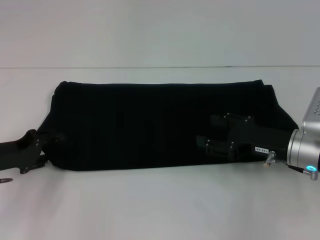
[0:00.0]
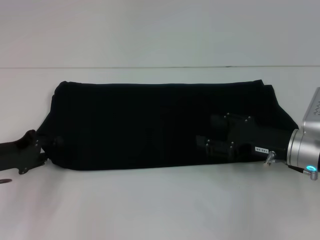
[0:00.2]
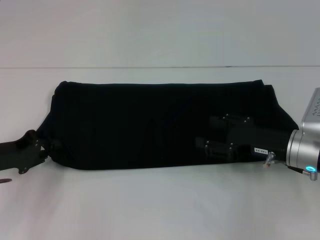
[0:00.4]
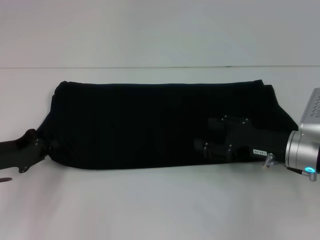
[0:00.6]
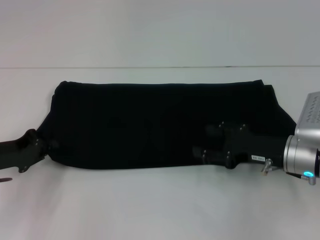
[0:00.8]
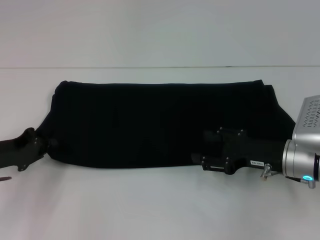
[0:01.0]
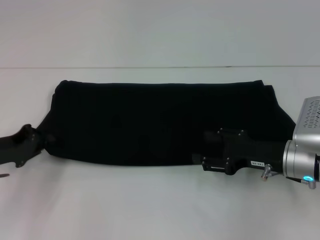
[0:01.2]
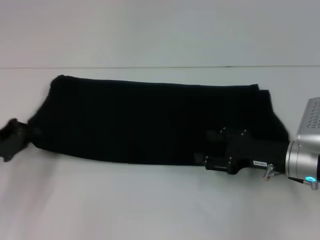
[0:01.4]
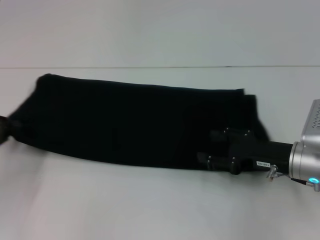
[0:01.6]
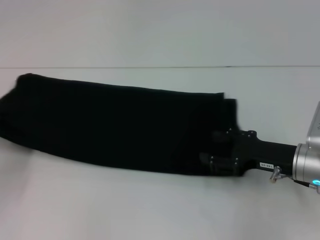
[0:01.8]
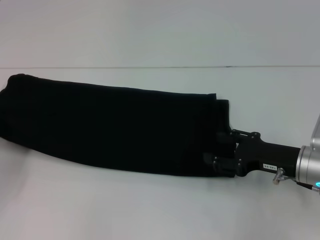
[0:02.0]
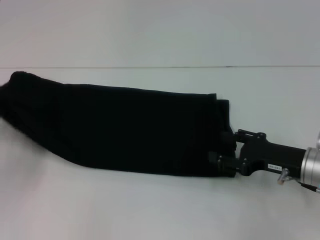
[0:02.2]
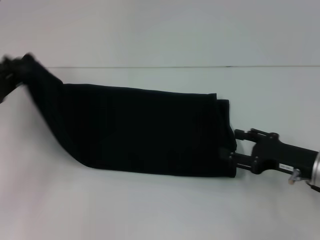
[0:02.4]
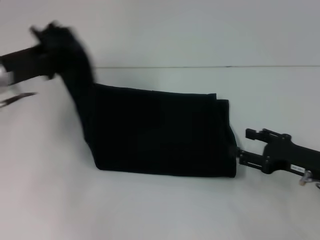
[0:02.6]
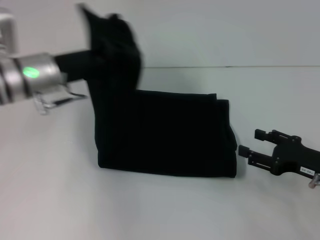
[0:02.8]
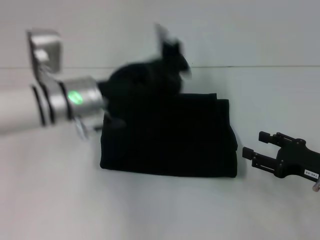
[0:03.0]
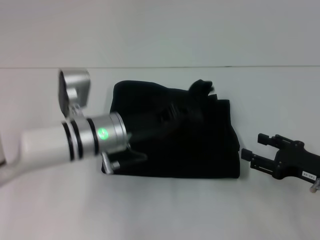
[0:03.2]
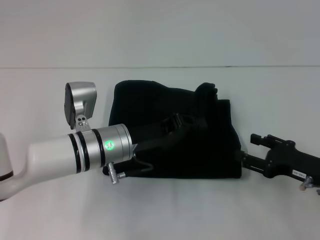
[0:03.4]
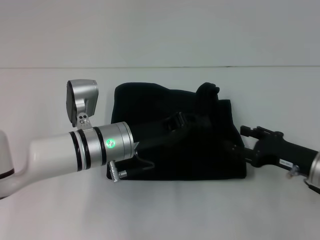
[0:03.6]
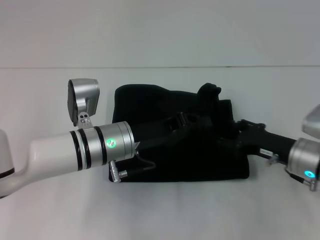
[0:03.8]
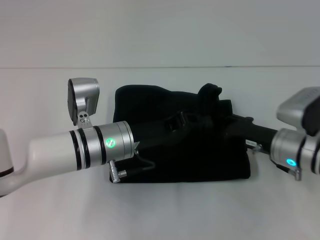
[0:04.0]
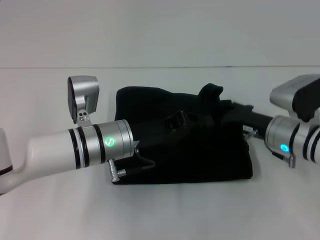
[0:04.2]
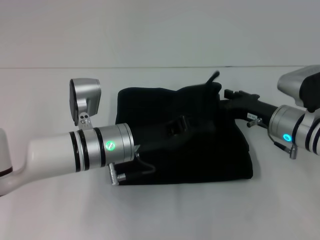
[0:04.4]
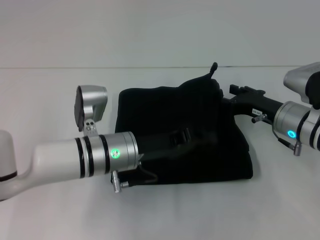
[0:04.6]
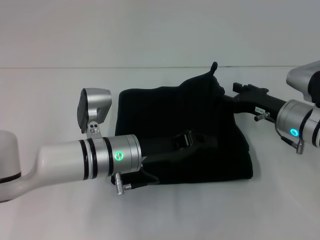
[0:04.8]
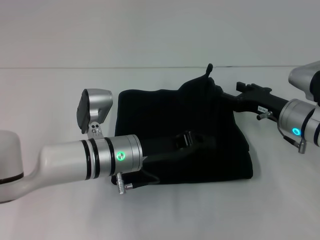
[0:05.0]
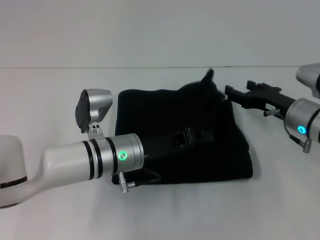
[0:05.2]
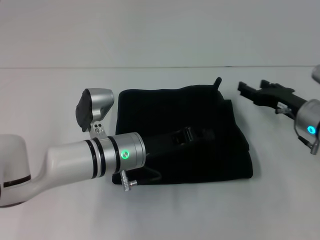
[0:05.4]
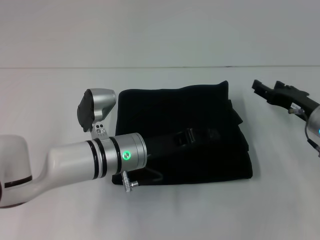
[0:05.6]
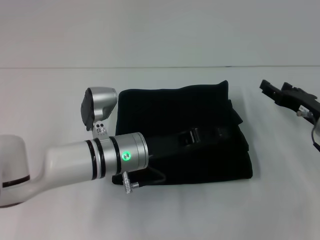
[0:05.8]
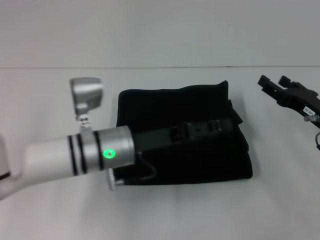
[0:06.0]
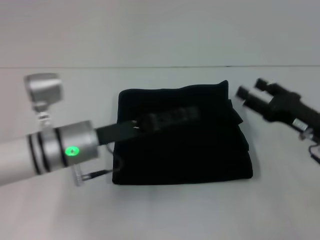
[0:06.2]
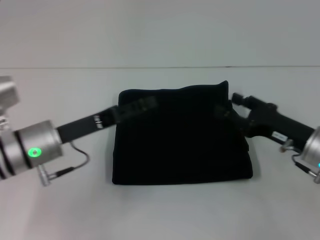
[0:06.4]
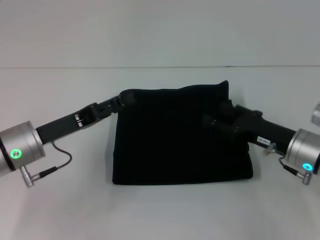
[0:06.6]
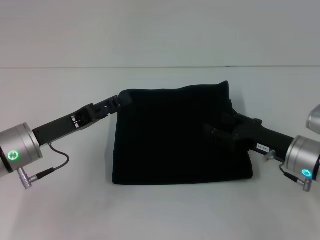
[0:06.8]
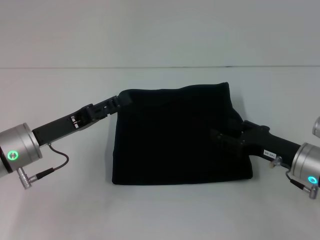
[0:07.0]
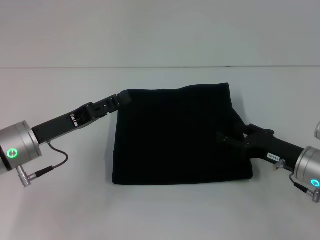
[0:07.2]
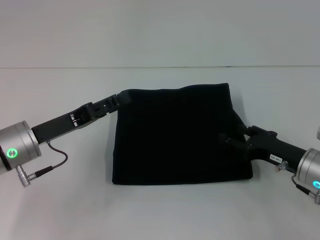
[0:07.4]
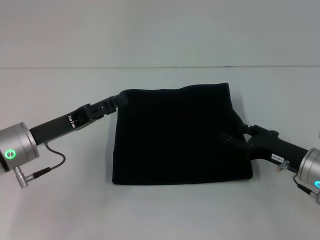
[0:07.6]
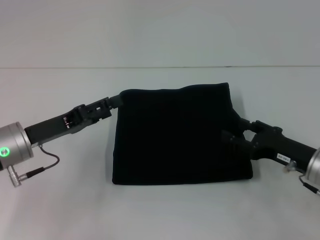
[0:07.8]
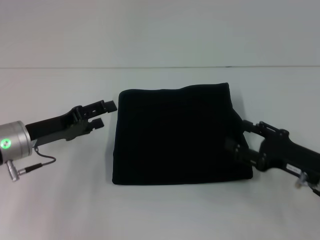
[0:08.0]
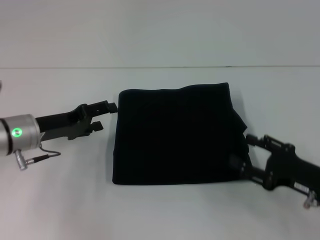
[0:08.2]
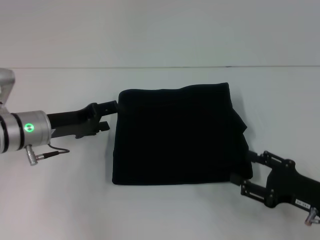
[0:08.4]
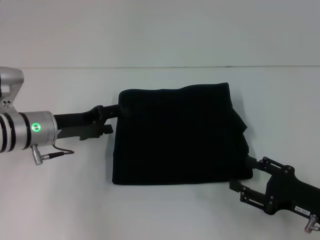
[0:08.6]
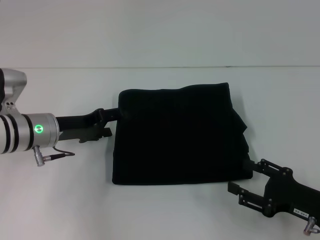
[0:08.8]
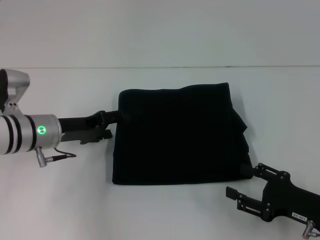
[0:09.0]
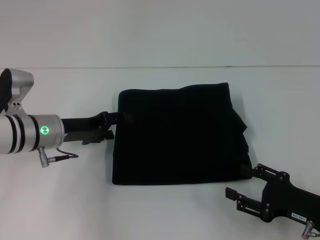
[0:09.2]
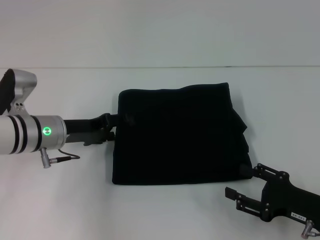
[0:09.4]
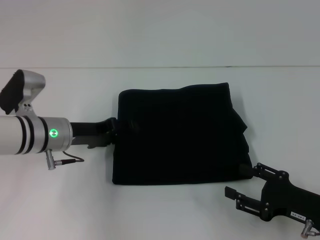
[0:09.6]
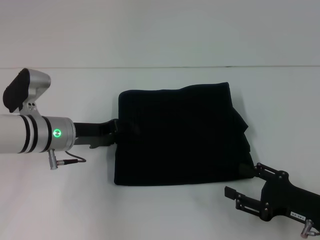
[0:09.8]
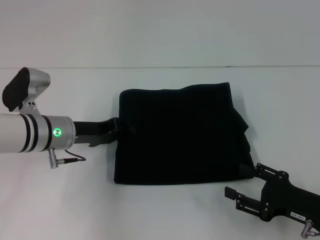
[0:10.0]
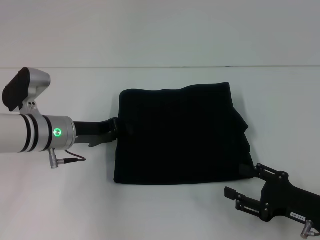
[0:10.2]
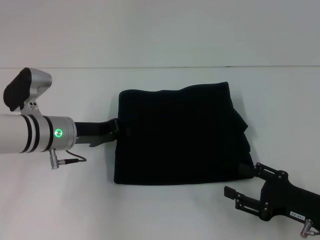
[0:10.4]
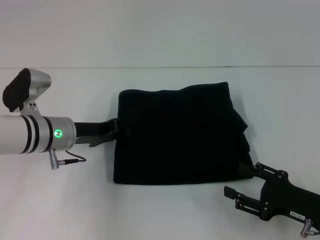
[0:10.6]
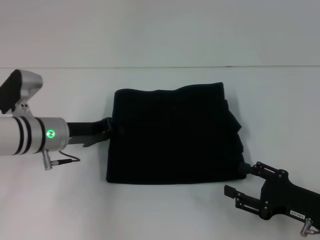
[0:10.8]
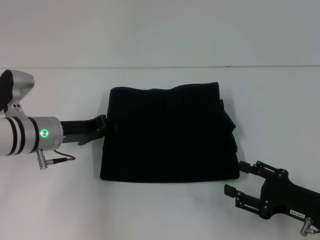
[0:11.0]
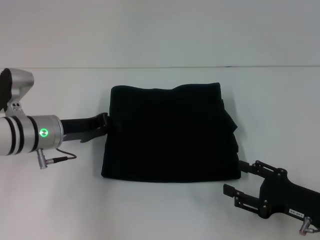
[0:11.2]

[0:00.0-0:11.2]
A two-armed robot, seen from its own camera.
Step, 0.0 to 6.0 s: Fold the clothes with your left hand.
0.0 to 1.6 s: The left gripper closes.
1.6 to 3.2 s: The right gripper goes approximately 5 cm to the right. Meanwhile the left gripper goes roughly 25 cm to the right.
3.2 to 4.8 s: The right gripper shifts roughly 10 cm forward and to the left.
4.8 to 6.4 s: The left gripper is displaced to the left by approximately 10 cm, and opens; the right gripper shifts some 5 cm backward.
6.4 to 8.0 s: The left gripper moves to the left, some 5 cm.
8.0 to 9.6 s: The left gripper heads to the right, covering roughly 5 cm. The right gripper ends up some 5 cm from where it was.
9.6 to 11.2 s: The left gripper closes.

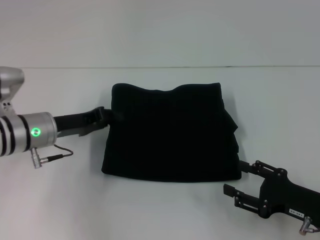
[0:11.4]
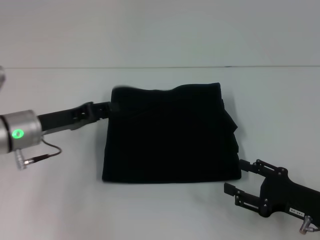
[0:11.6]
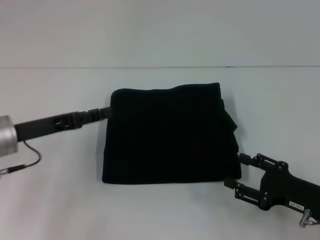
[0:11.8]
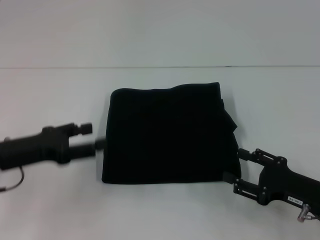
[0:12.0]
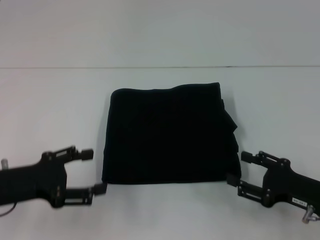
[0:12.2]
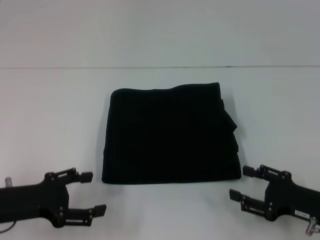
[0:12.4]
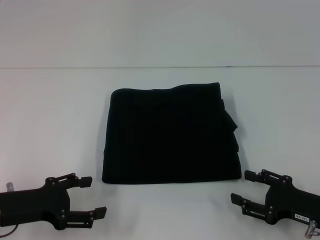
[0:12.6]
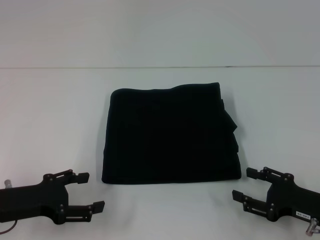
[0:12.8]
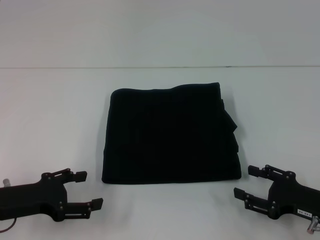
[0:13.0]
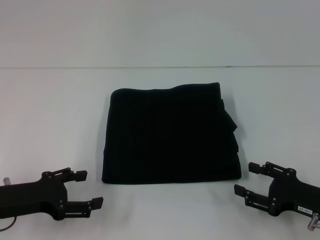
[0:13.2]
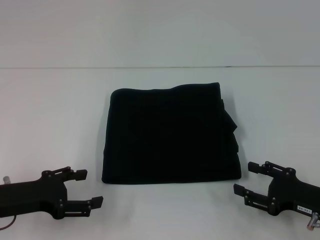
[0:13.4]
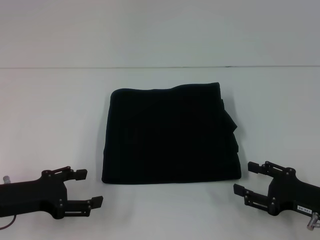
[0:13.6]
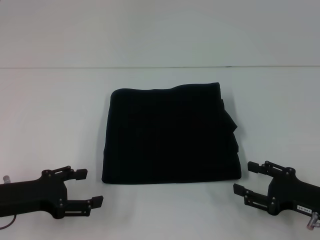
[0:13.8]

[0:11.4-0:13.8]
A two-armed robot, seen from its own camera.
11.4 to 12.6 s: The left gripper is displaced backward and to the left by some 15 cm, and opens its fingers.
12.6 to 13.8 s: The two grippers keep their place.

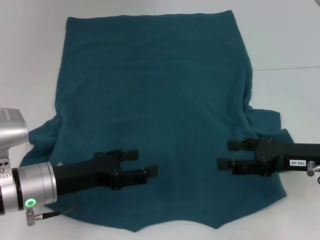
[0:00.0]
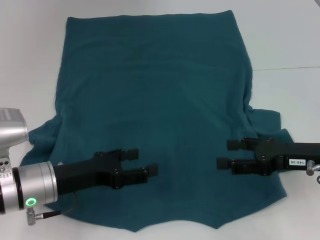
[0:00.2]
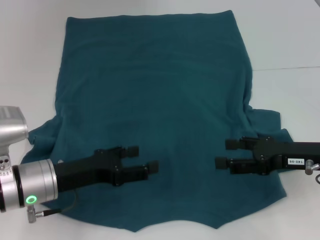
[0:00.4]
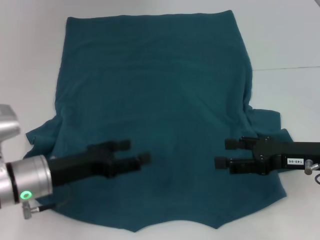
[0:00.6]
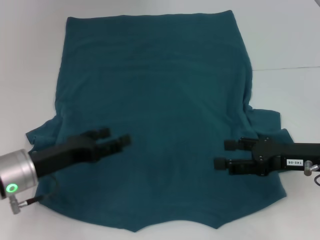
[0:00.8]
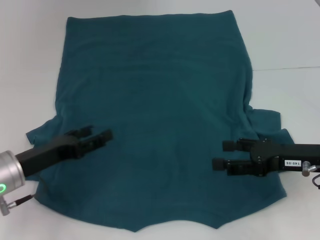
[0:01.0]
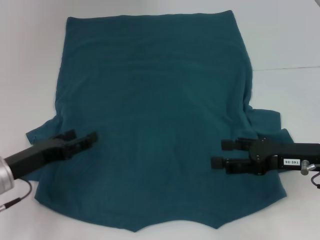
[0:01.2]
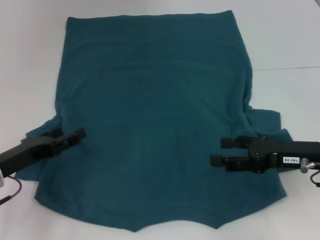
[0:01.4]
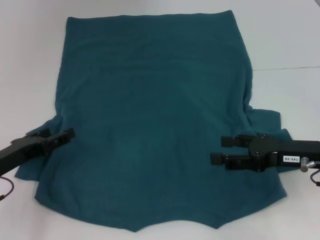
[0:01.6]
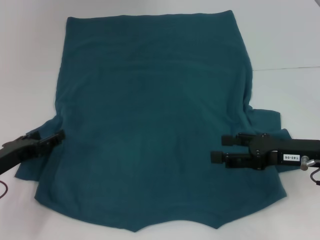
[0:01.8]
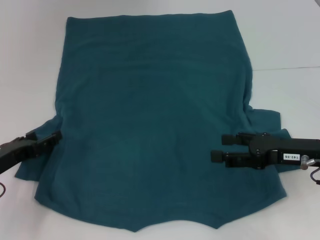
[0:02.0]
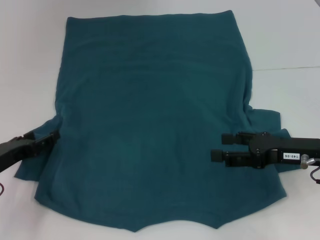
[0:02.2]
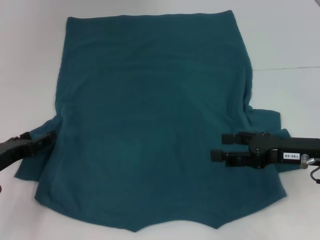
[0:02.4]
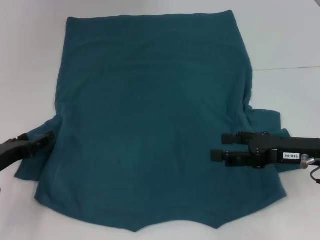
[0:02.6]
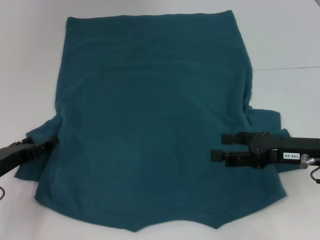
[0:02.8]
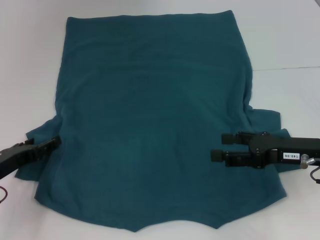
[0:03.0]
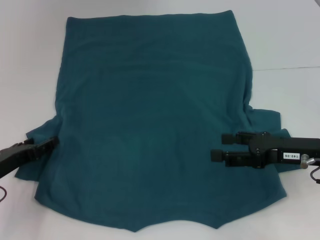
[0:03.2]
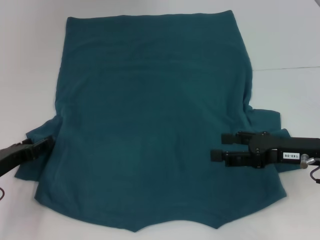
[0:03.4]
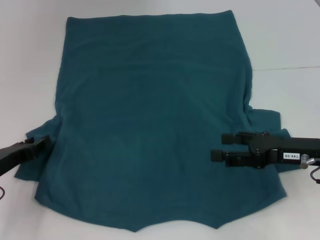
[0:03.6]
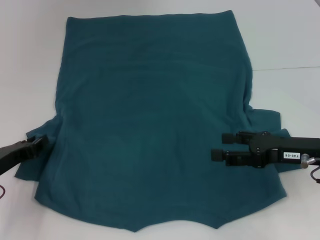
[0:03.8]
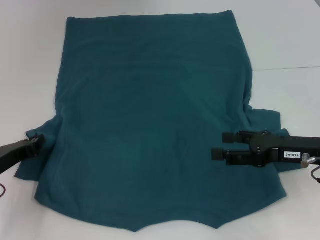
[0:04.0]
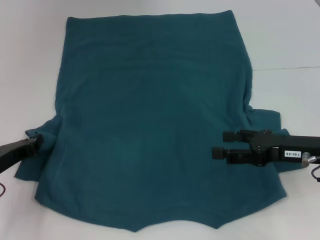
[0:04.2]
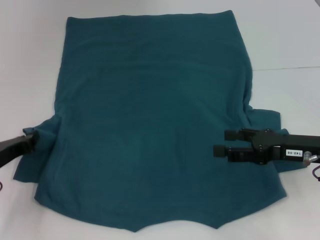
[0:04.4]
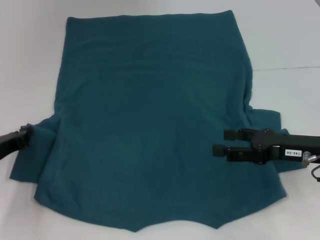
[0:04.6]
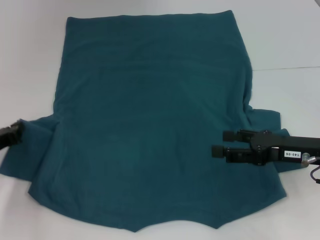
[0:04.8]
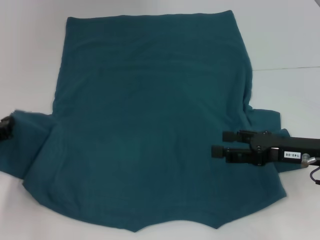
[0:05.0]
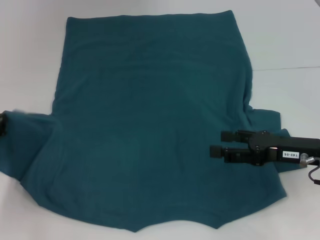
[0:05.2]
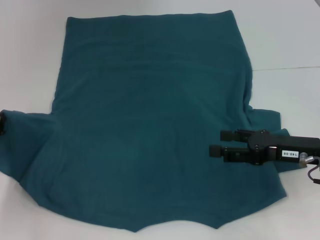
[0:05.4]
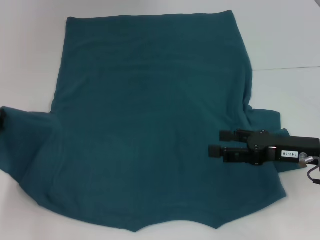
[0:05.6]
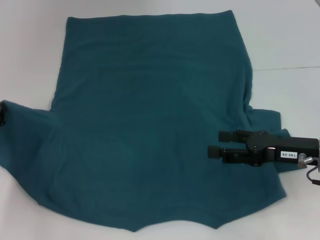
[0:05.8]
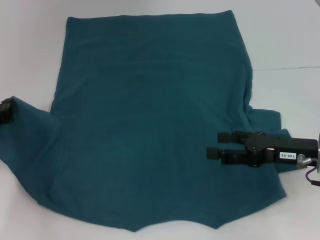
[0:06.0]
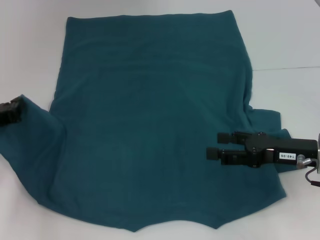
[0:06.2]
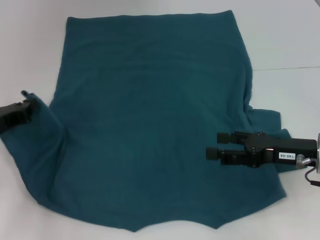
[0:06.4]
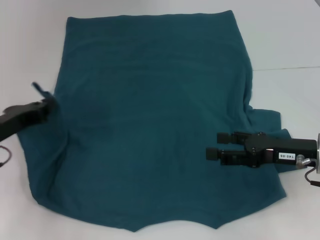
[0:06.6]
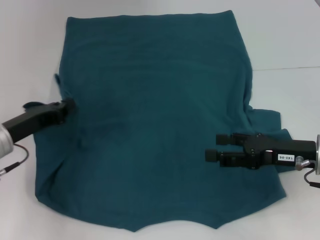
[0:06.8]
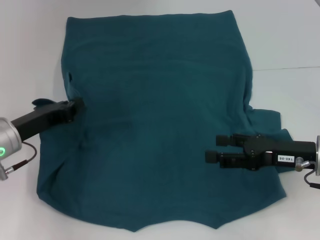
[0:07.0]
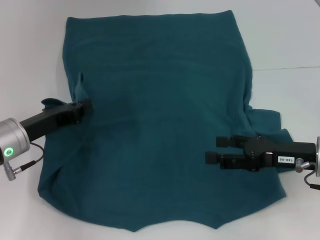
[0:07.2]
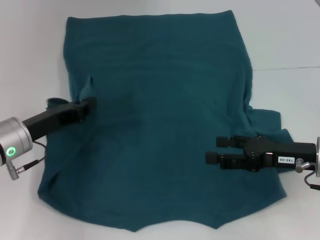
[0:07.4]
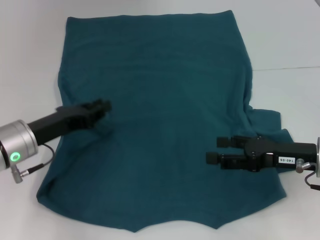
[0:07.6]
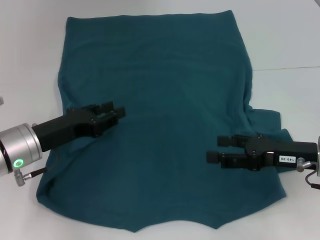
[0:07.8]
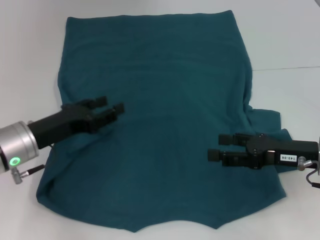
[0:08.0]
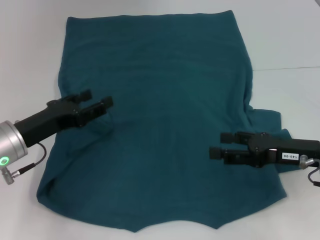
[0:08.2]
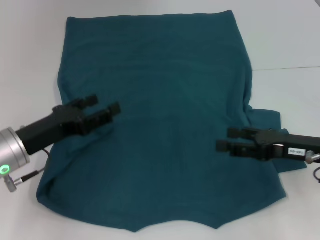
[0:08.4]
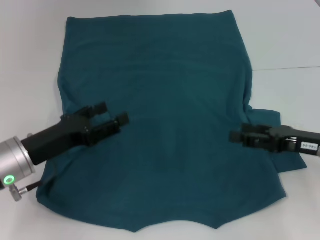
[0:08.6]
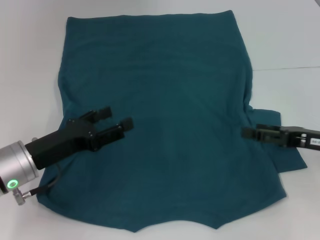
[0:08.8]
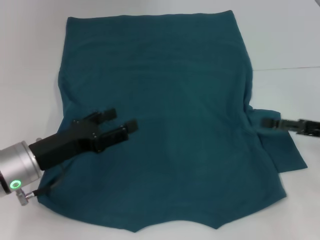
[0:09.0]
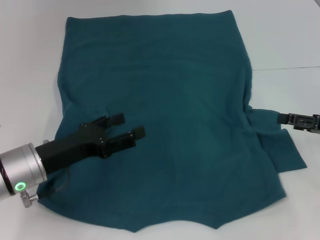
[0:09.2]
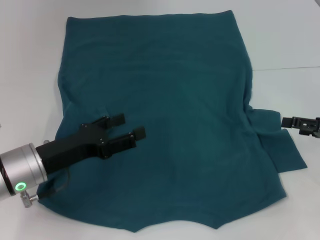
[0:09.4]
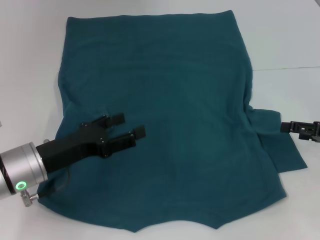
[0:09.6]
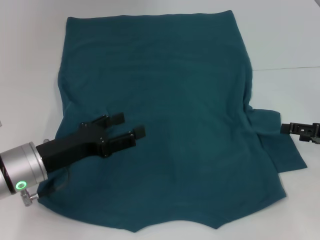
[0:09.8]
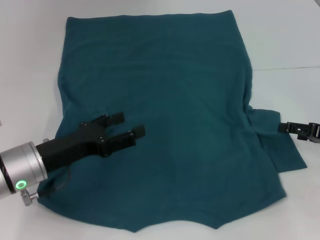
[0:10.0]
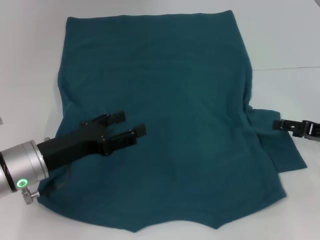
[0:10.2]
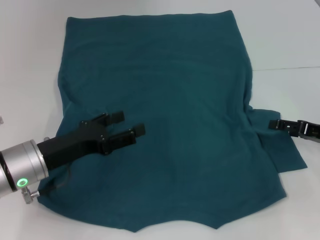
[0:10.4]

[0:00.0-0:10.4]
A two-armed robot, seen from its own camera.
Step, 0.0 to 8.0 s: Fold the bottom left sleeve with your left hand.
0.0 to 1.4 s: The left gripper travels to the left by about 10 cm.
1.4 to 3.0 s: The grippers move only a little.
3.0 to 4.4 s: The left gripper closes up.
4.4 to 6.0 s: The left gripper ends up roughly 5 cm from where it was.
6.0 to 7.4 s: The left gripper shifts some 10 cm to the right.
7.4 to 9.0 s: The right gripper moves to the right, about 10 cm. Meanwhile the left gripper opens.
9.0 to 10.4 s: The grippers stay close to where they were, moving slightly.
